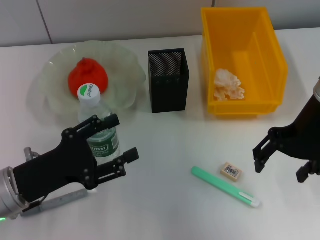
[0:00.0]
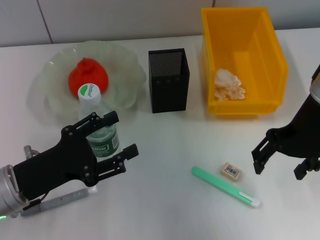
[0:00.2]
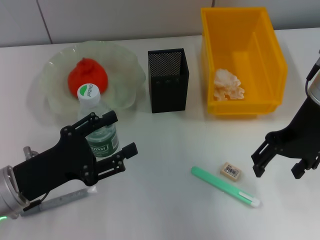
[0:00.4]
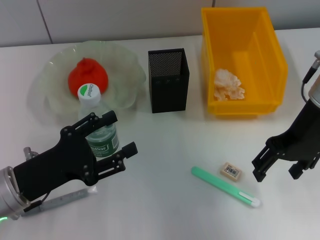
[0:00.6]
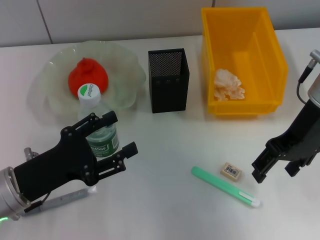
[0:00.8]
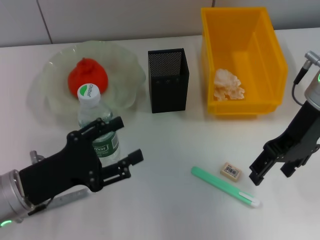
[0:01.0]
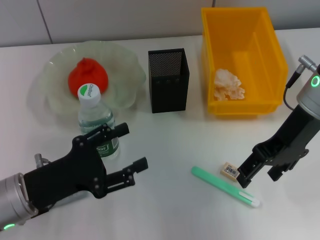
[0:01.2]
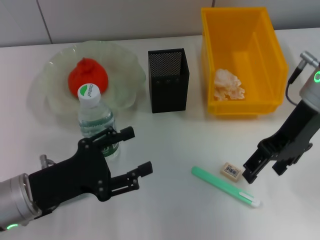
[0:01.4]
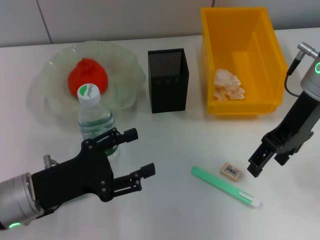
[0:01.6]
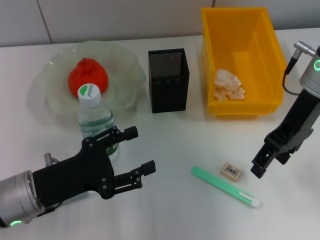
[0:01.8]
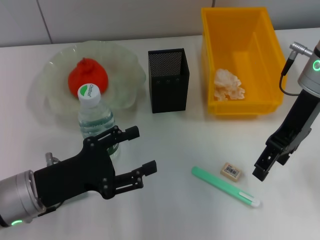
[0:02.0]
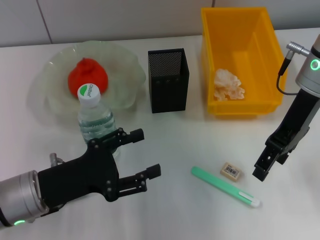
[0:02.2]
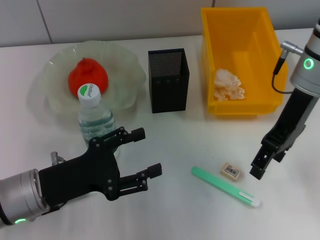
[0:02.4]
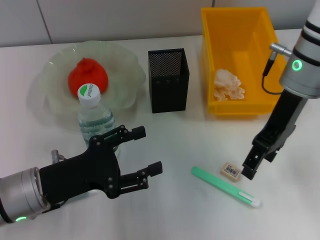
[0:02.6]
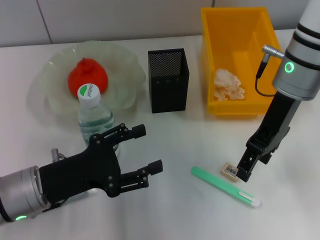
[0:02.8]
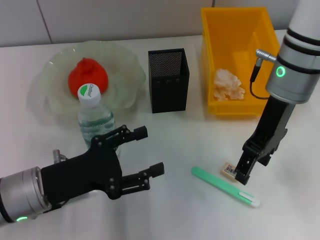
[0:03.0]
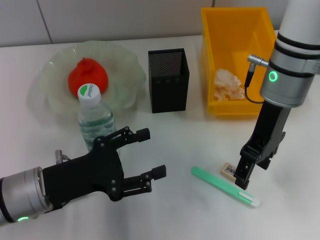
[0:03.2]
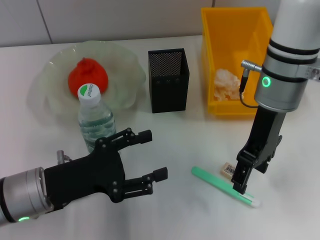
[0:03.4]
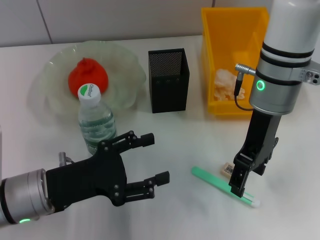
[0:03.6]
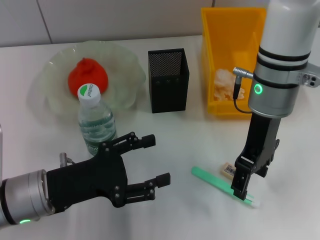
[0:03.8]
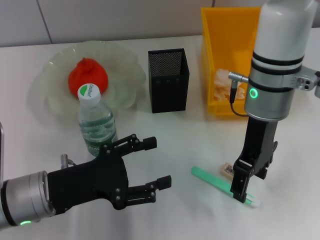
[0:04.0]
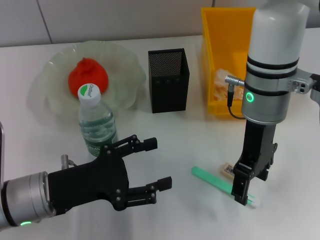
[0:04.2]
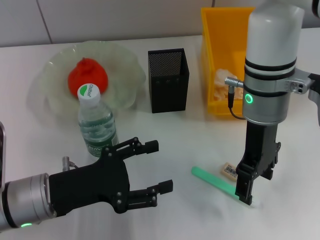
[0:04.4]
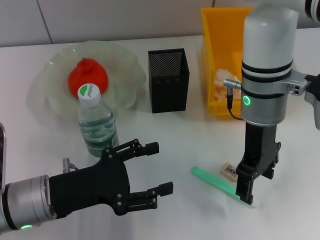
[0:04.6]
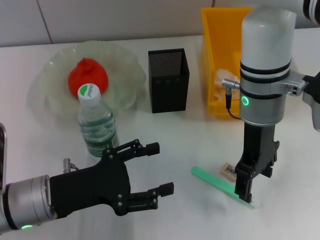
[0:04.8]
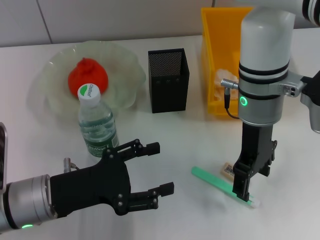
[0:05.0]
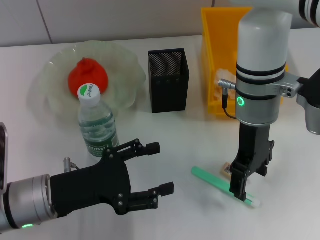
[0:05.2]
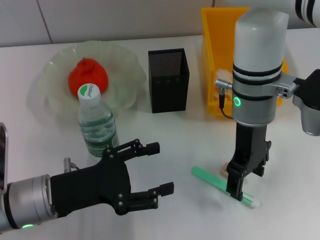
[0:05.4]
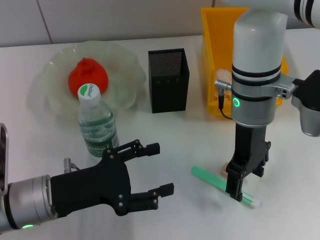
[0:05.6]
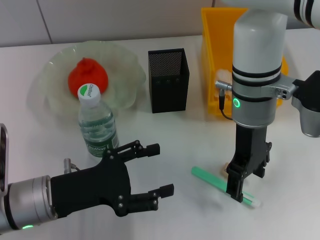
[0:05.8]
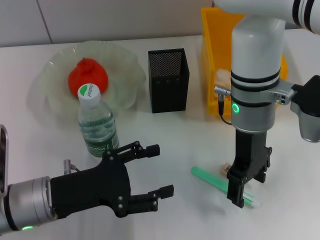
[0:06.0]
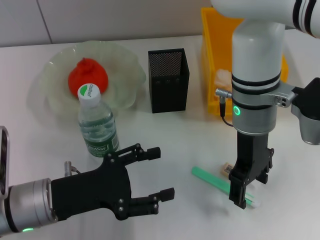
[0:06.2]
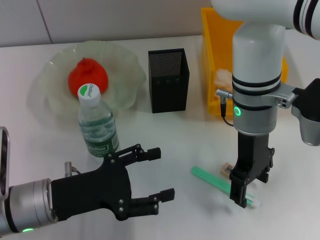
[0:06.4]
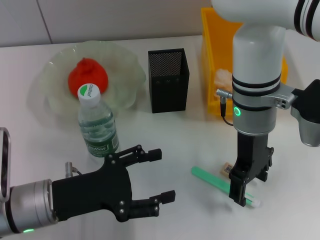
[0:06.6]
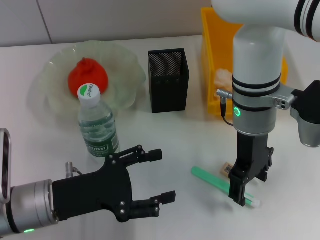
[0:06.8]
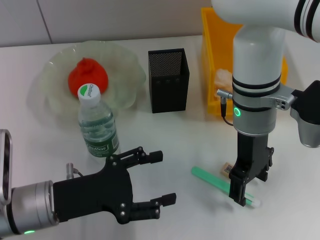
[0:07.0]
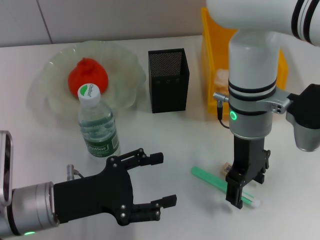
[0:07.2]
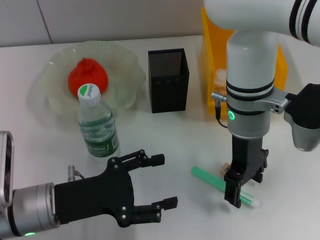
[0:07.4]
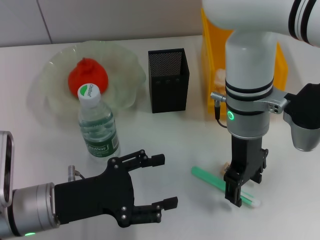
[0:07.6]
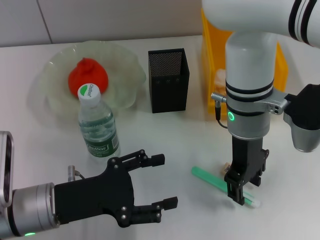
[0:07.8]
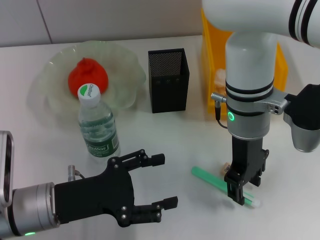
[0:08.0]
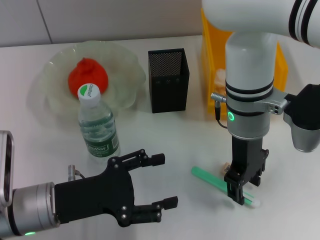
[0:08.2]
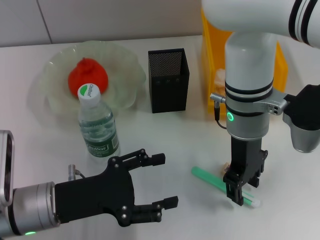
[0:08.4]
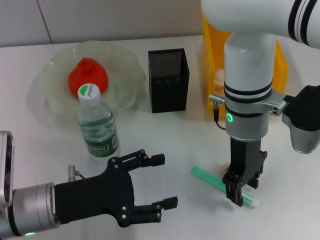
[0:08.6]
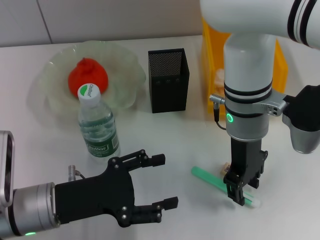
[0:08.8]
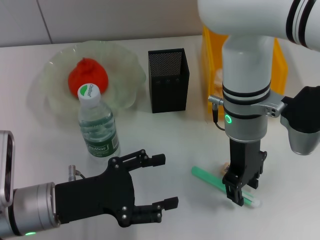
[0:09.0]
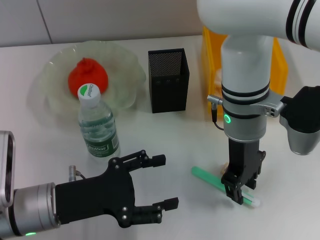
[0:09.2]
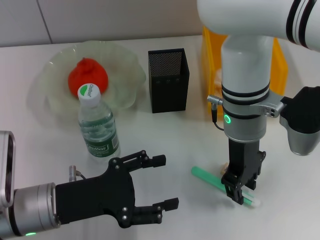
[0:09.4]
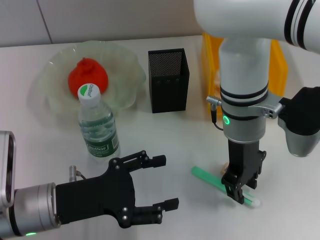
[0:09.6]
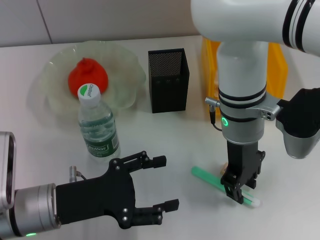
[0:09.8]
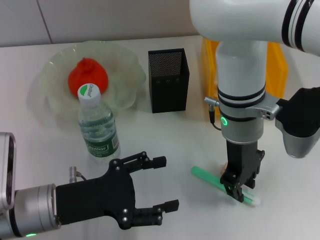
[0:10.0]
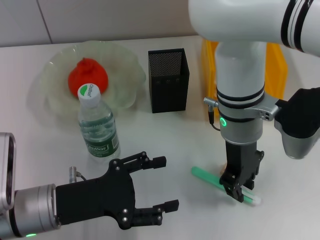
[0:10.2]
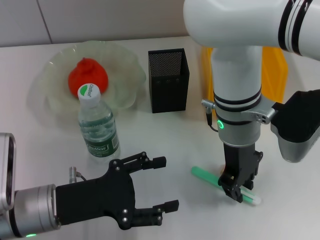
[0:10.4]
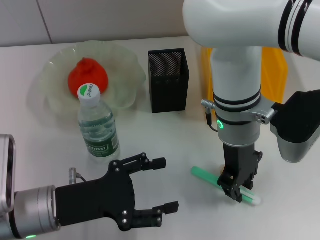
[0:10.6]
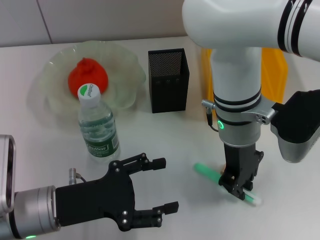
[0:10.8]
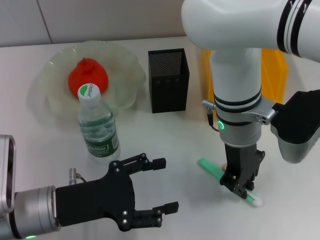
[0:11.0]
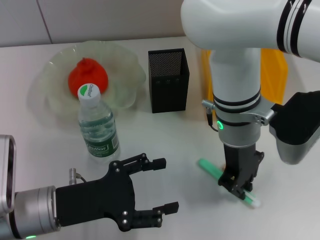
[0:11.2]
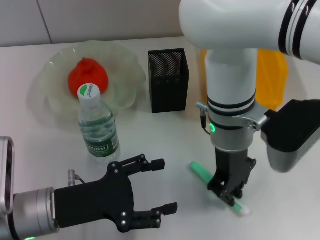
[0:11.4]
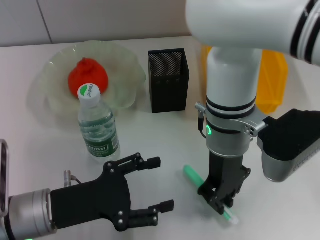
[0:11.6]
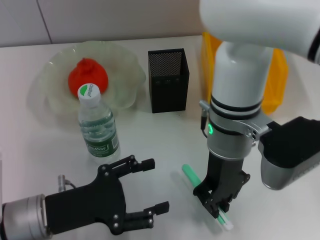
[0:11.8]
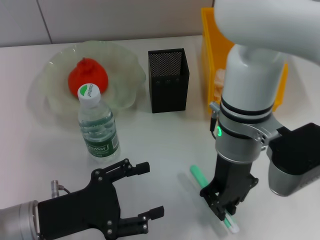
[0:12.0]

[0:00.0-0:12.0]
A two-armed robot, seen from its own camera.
Step, 0:00.0 to 0:10.8: Grab the blue utility knife with the right hand.
0:01.6 to 0:03.0: The right gripper moves some 5 cm.
0:03.0 to 0:04.4: The right gripper shifts by about 5 cm.
0:04.4 to 0:06.0: The grippers stay close to where they were, moving slightly.
0:06.0 to 0:07.6: Neither gripper changes place.
0:07.6 to 0:09.0: The right gripper closes its fingers.
0:09.0 to 0:10.4: Both grippers stay about where they are.

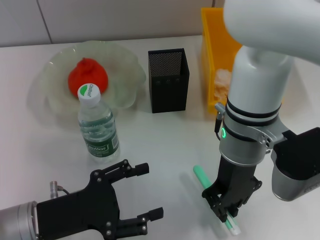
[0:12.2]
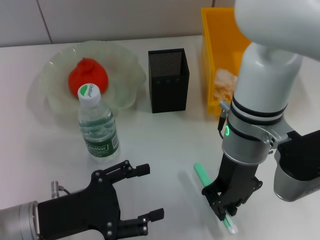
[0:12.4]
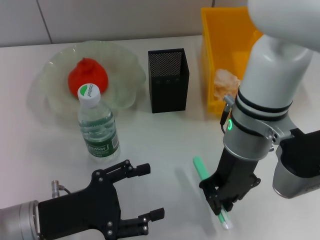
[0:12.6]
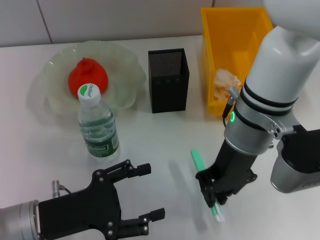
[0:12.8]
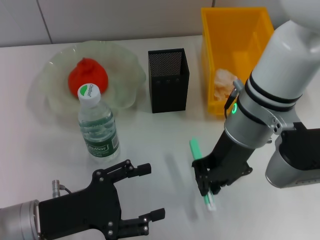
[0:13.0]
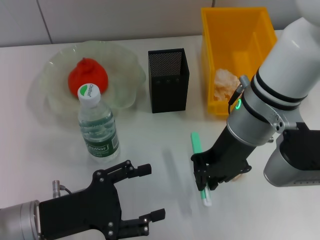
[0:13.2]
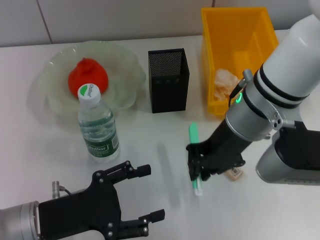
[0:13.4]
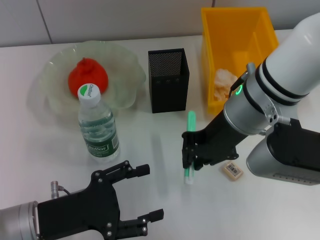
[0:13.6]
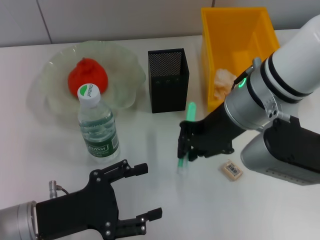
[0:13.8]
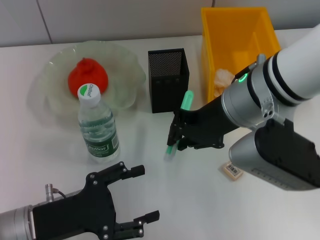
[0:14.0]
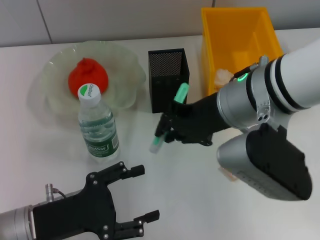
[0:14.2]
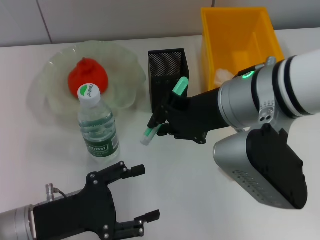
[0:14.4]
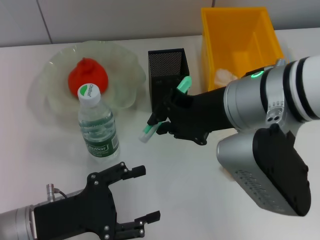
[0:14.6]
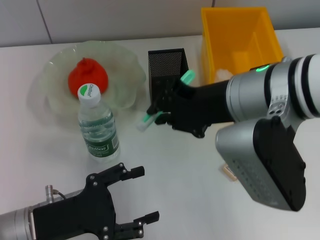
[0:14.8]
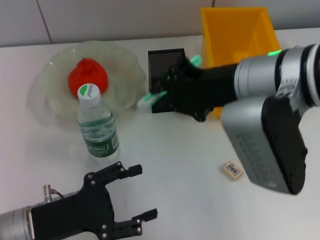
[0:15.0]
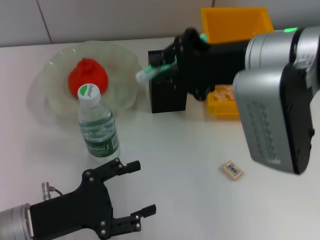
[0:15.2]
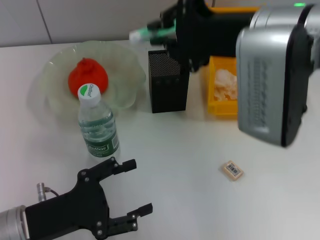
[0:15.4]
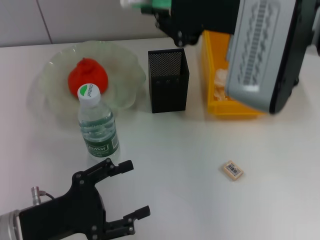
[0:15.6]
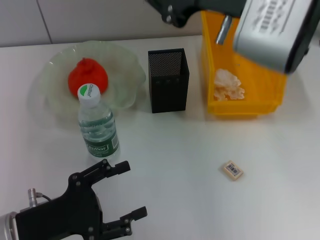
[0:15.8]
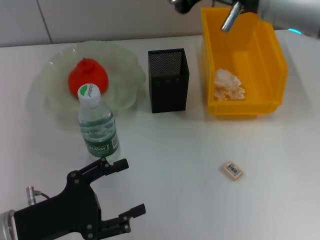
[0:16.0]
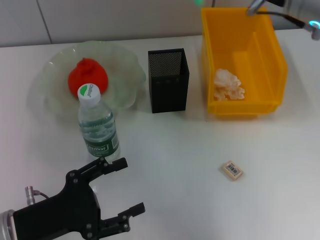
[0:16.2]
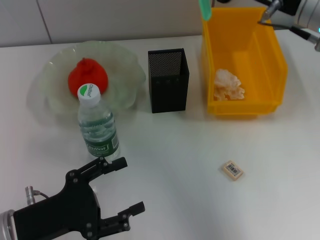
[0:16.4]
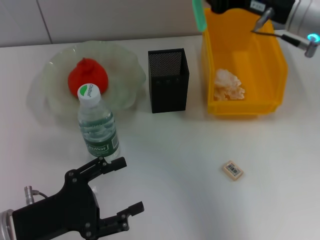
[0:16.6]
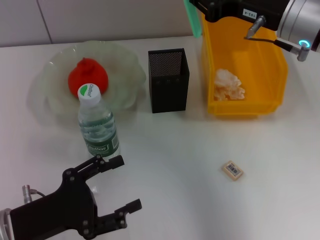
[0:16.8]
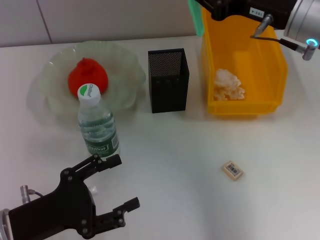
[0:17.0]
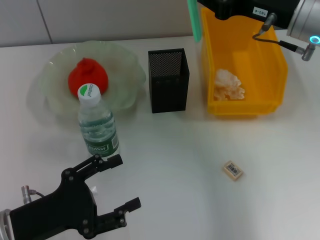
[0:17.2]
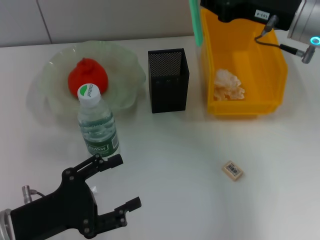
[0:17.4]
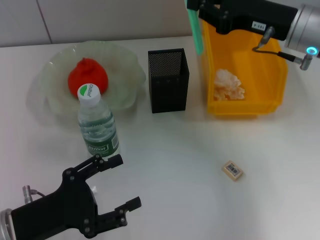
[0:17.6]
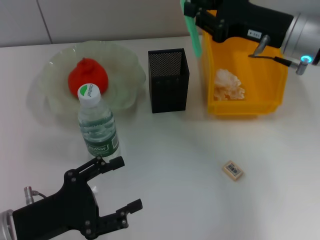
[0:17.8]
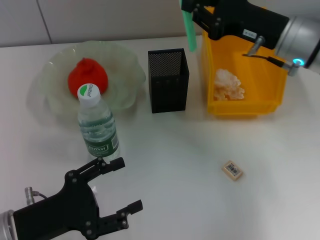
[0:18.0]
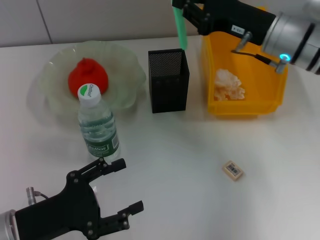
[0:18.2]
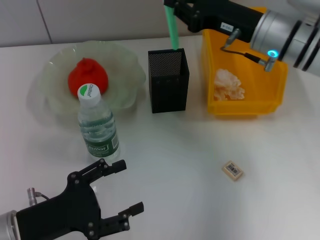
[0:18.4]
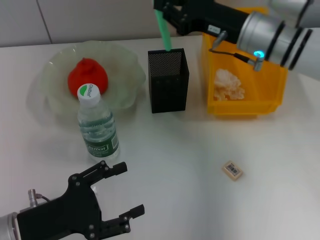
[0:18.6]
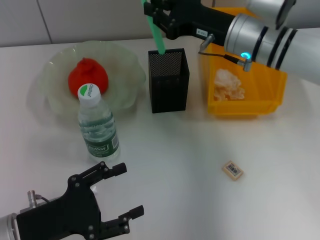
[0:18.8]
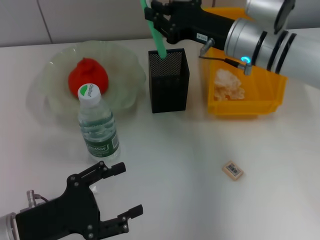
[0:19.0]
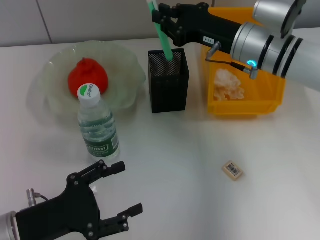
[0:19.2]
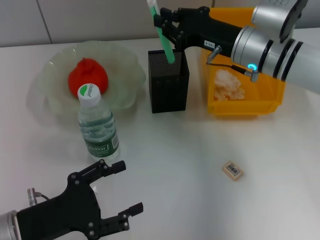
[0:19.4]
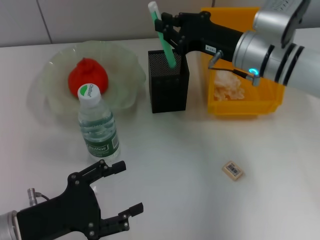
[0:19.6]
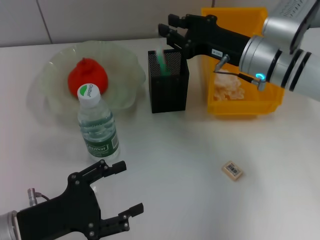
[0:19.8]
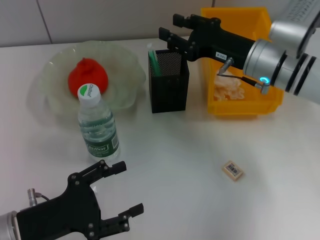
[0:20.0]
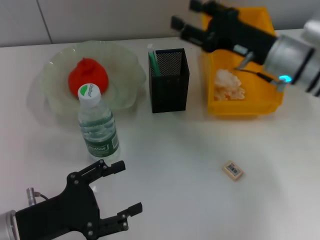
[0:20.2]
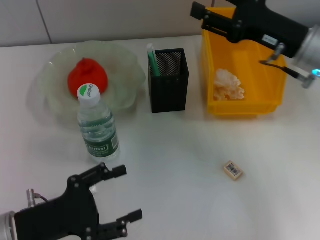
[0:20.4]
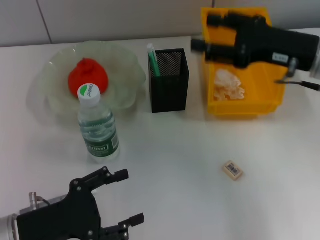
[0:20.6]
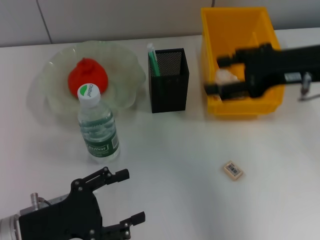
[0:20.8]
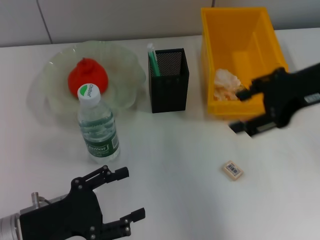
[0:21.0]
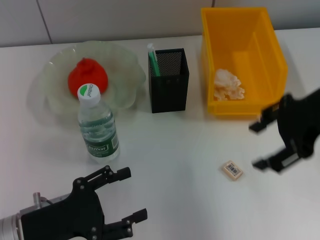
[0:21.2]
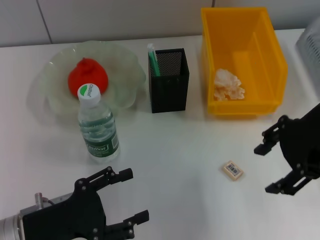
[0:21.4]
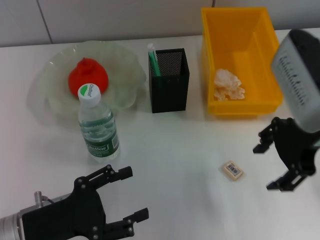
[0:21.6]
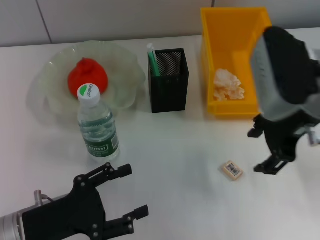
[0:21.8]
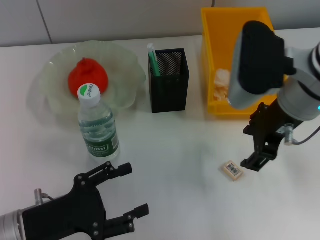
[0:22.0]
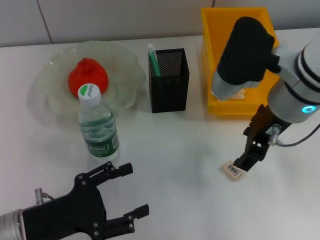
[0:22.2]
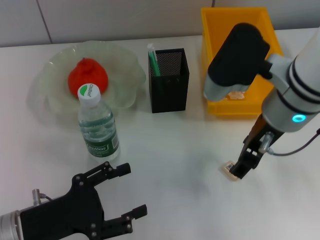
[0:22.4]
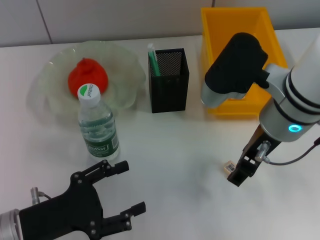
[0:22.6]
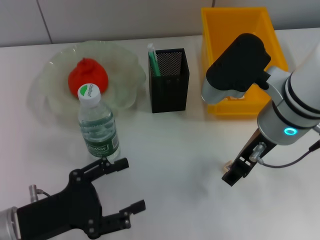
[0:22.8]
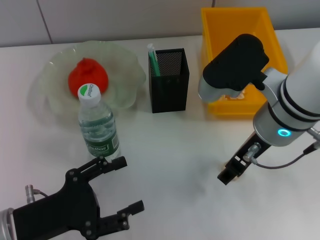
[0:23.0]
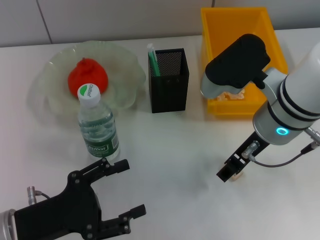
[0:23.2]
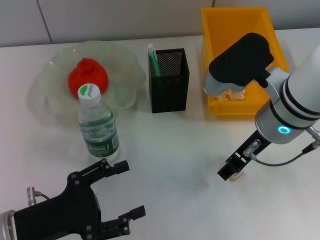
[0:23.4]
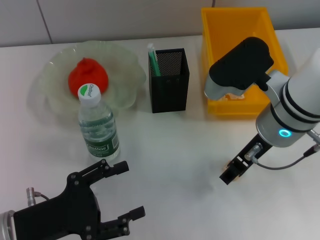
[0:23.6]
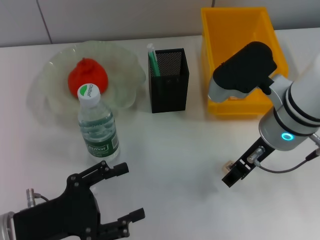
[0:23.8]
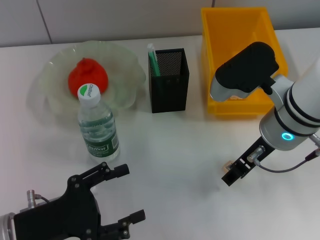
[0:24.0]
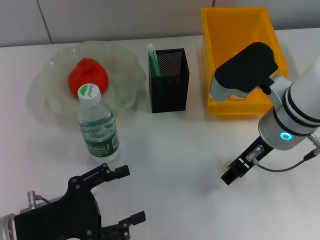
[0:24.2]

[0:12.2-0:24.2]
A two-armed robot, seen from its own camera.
Step, 0:12.2 to 0:19.8: Place the blue utility knife into the pen holder with the right hand.
0:13.8 to 0:15.2: The right gripper shifts roughly 5 cm upward.
0:15.2 to 0:16.6: The right gripper goes roughly 10 cm to the right and forward.
0:16.6 to 0:18.2: The right gripper moves downward, roughly 5 cm.
0:18.2 to 0:19.8: There are only small adjustments of the grippers.
0:19.8 to 0:21.2: The right gripper heads upward, backward and to the right, covering roughly 15 cm, and opens.
0:21.2 to 0:22.6: The right gripper is displaced to the left and downward by approximately 10 cm.
0:22.6 to 0:24.2: The grippers move only a little.
